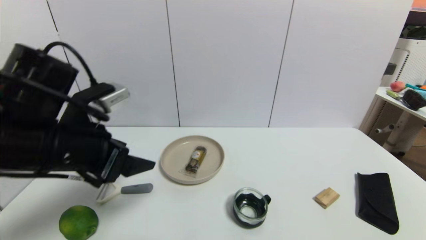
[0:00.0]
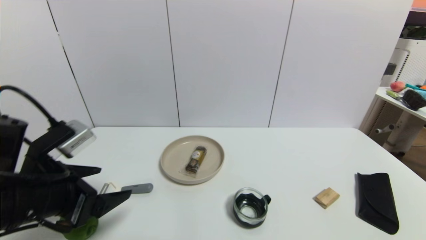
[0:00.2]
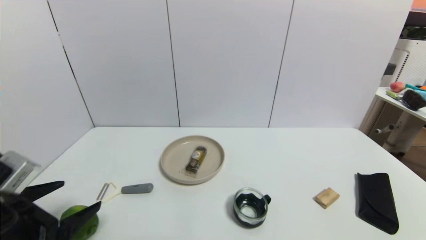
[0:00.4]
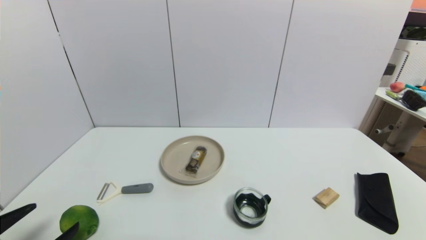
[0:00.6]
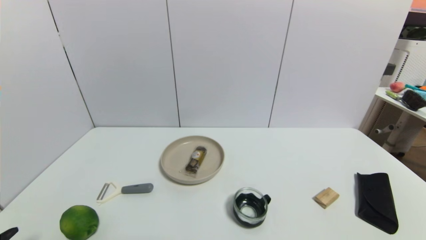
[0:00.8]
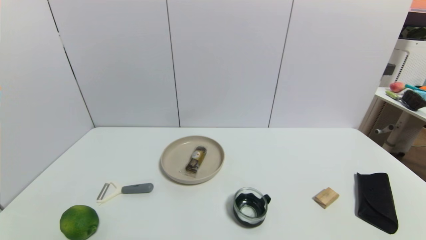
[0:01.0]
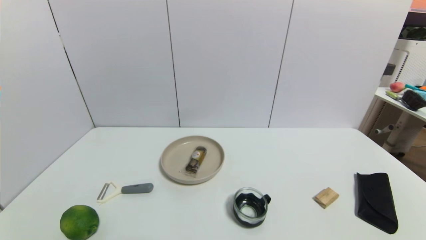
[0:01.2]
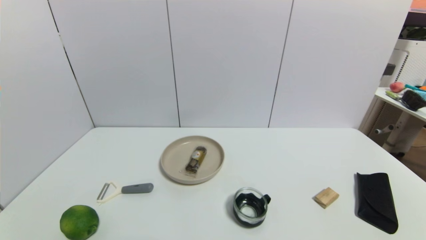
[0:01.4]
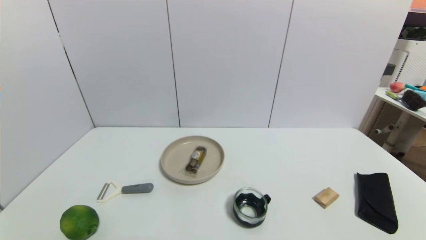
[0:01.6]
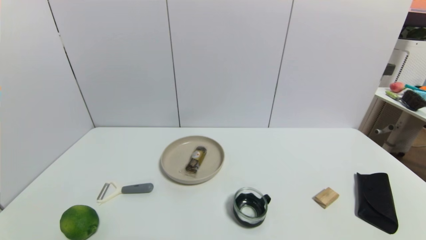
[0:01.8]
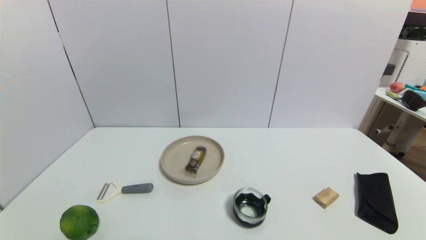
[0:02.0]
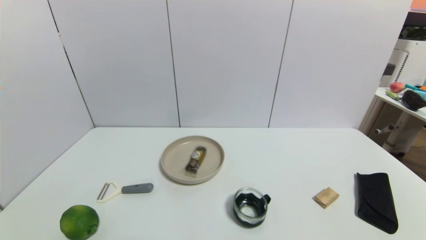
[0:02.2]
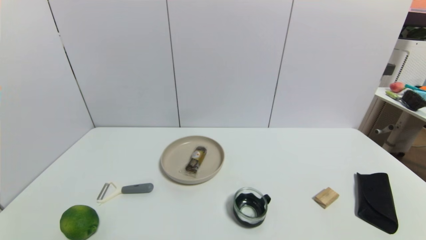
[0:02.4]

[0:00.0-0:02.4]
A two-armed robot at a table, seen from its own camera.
Task of the whole recording: use a gripper to pick the target object and place on the brown plate.
0:00.0 to 0:01.2: The left gripper moves backward, downward and to the left, some 25 cm.
0:01.2 to 0:02.4: Both grippers stay about where they are.

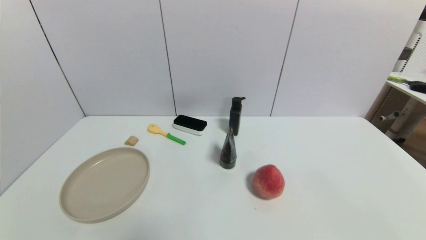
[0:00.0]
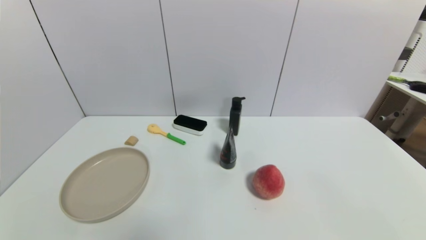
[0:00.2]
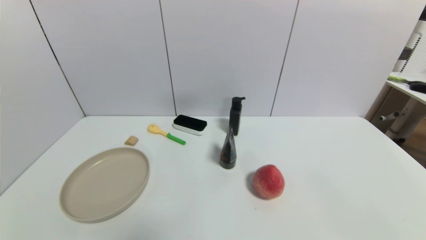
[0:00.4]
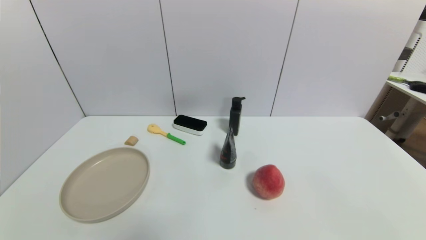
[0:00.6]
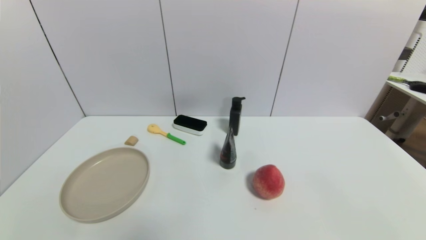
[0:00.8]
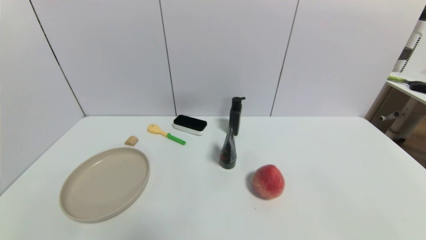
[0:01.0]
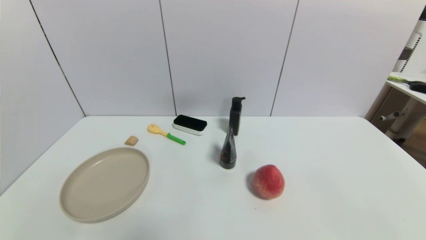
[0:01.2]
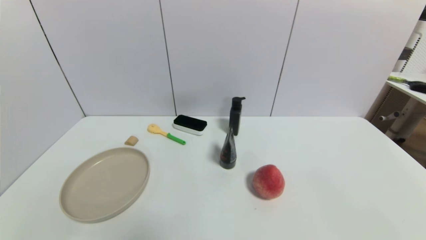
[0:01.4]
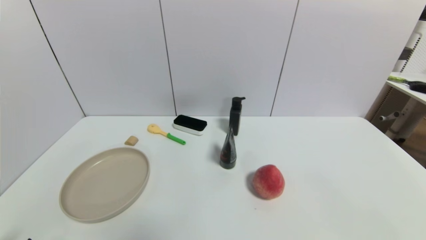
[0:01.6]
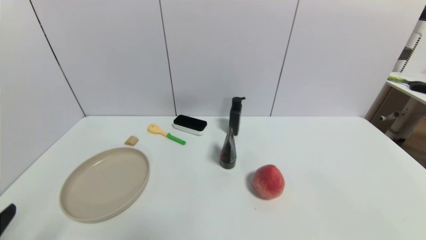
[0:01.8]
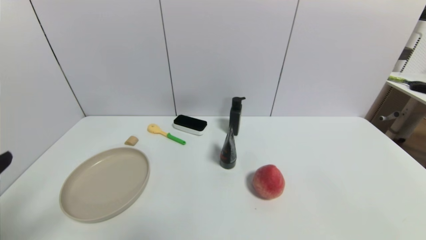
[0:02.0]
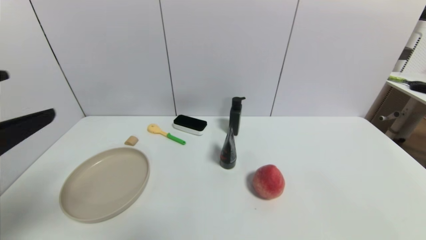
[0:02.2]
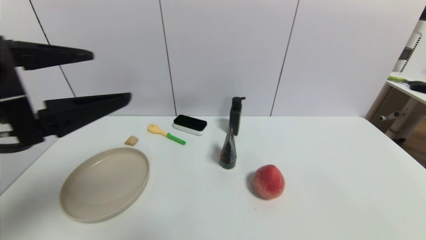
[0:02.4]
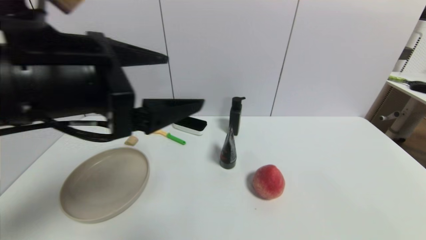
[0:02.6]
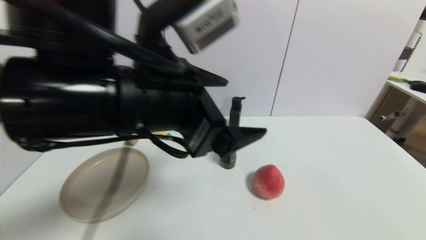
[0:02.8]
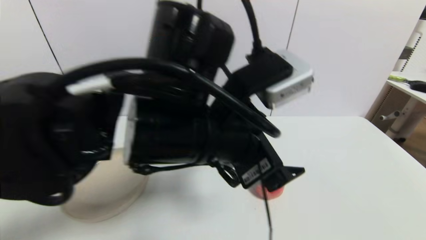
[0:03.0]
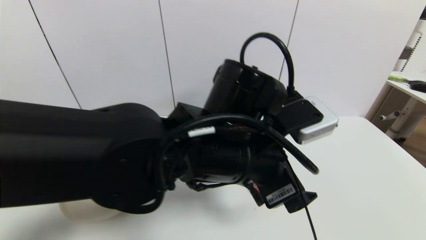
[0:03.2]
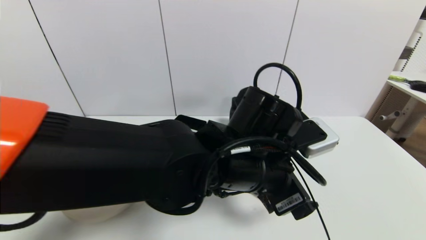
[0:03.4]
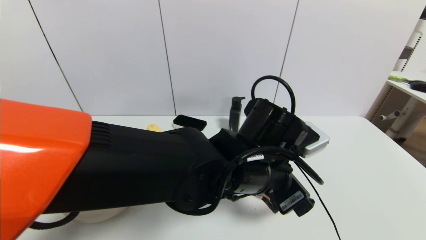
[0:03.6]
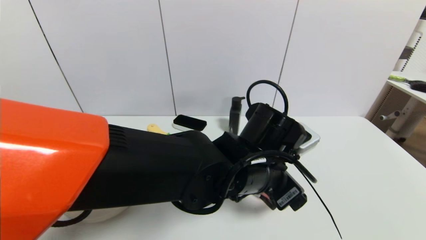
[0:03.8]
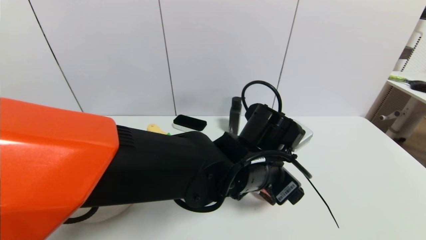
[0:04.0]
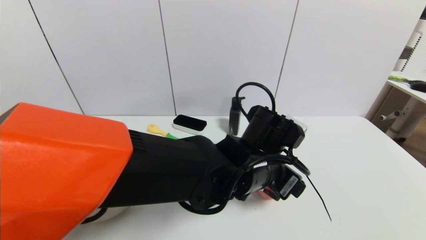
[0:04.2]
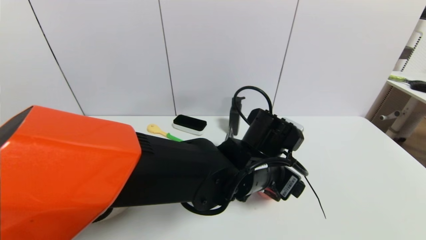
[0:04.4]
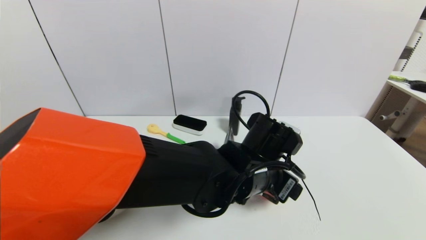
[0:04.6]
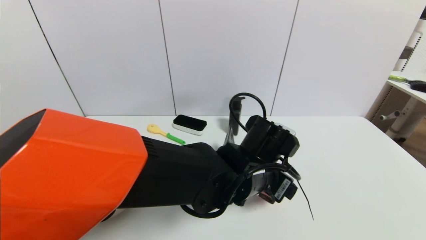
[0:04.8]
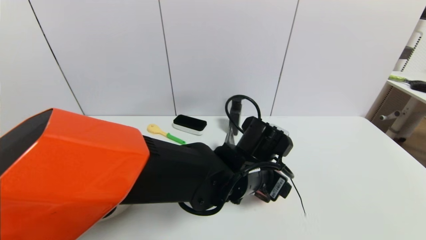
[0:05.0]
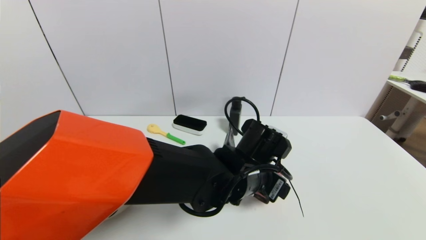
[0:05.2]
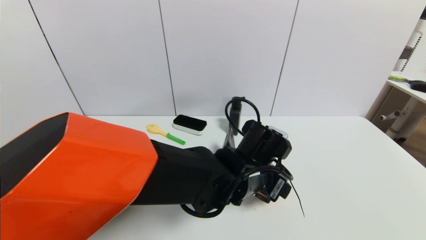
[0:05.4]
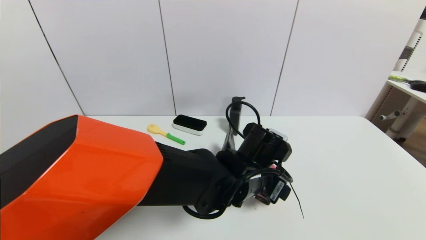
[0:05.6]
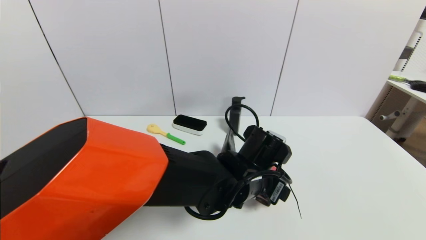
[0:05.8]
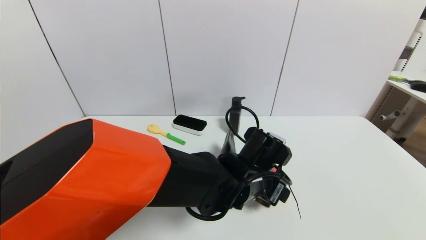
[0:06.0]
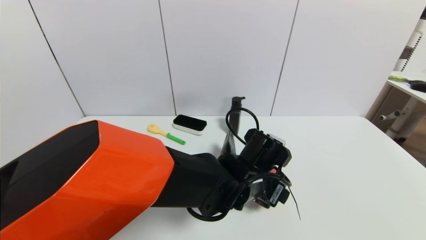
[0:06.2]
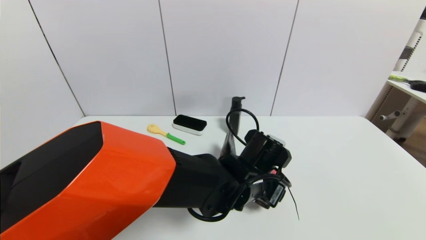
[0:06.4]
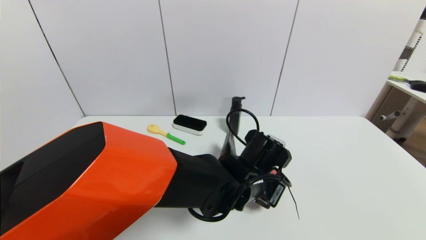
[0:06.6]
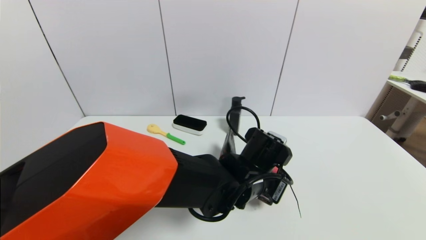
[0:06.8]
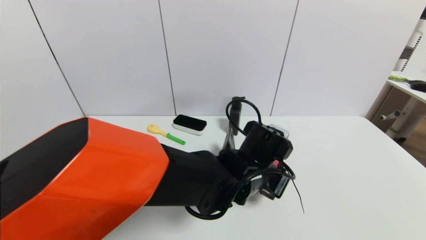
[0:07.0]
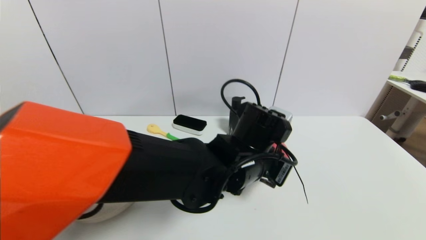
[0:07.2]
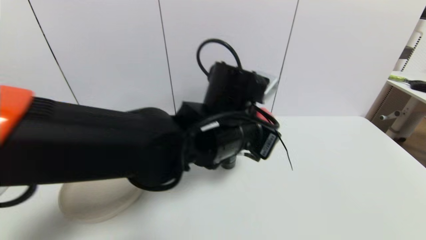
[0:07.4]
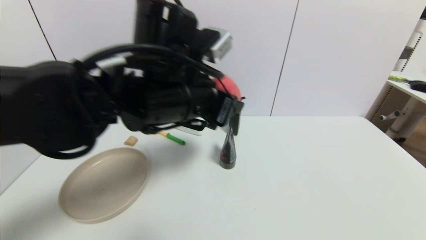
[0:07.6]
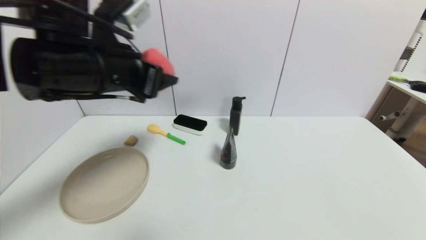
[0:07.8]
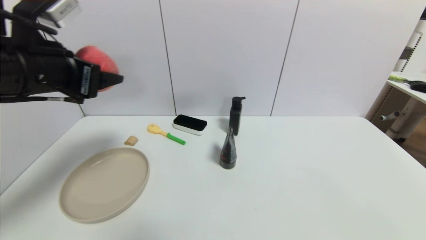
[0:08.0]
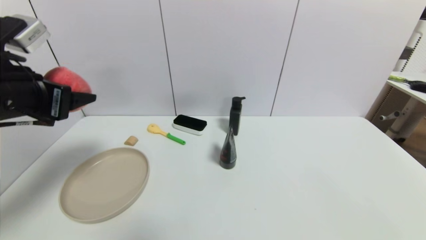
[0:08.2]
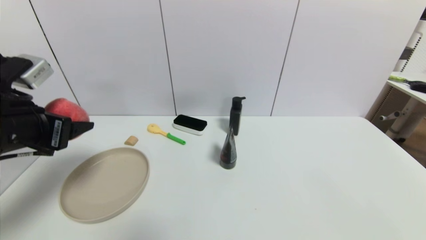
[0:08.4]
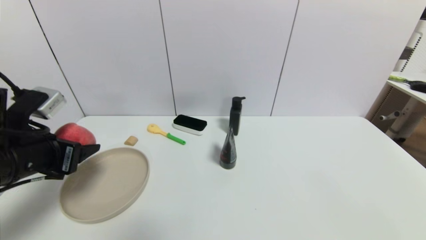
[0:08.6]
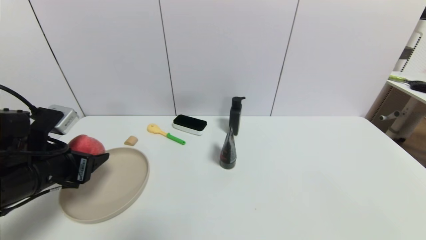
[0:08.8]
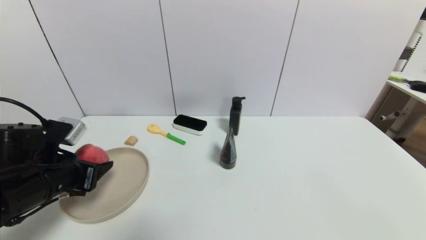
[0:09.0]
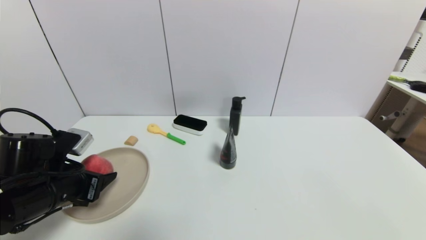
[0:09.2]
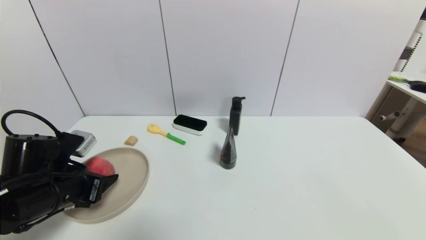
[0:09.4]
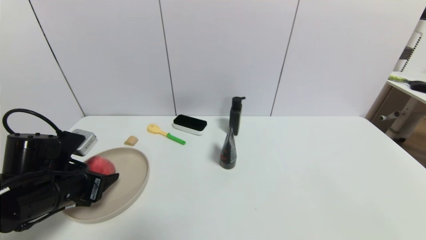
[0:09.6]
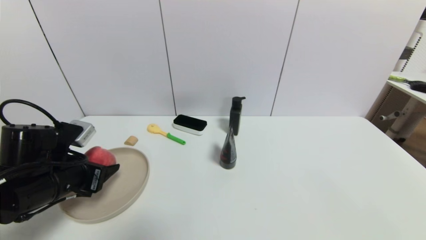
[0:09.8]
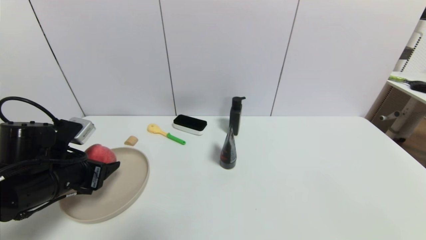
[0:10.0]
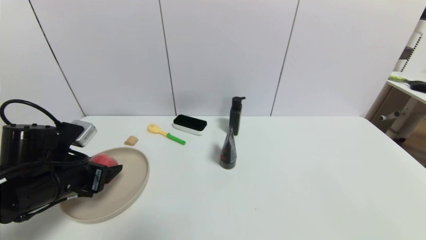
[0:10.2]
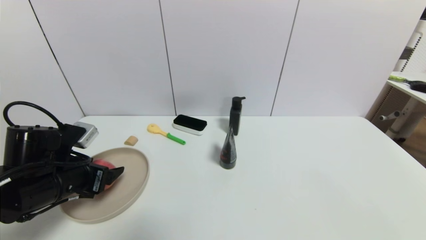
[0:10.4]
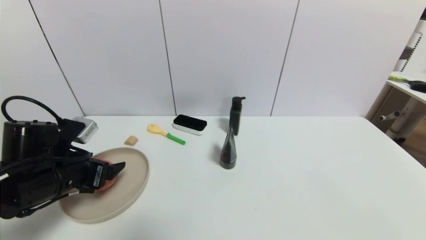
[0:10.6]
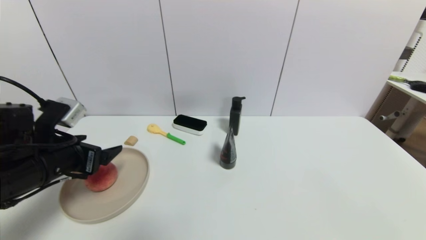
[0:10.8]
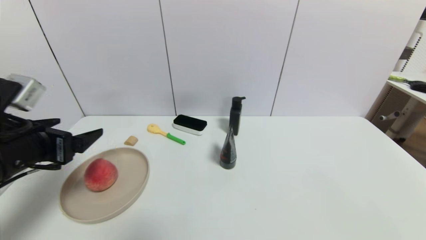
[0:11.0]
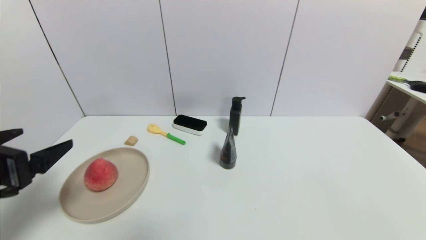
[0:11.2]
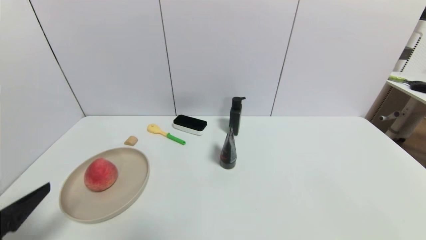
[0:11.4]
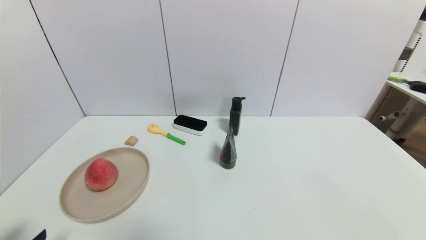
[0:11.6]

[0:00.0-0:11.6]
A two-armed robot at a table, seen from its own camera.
Task of the whole recording: use a gripper to pick the target object and place on the brown plate.
Step, 0:00.0 to 0:06.4: Grasp the peach with the left gripper.
Step, 0:06.6 to 0:10.6: Place the peach on the brown plate with the left gripper.
0:01.4 to 0:02.8: The left gripper travels upward, to the right and forward by roughly 35 cm.
0:02.8 to 0:04.4: The left gripper is displaced downward and to the right by roughly 20 cm.
0:04.4 to 0:05.8: The grippers stay close to where they were, moving slightly.
0:05.8 to 0:07.2: The left gripper travels upward by roughly 5 cm, and closes.
0:07.2 to 0:08.8: The left gripper heads to the left, covering some 30 cm.
0:08.8 to 0:10.2: The left gripper opens its fingers.
0:10.2 to 0:11.6: The left gripper moves backward, approximately 20 cm, and opens.

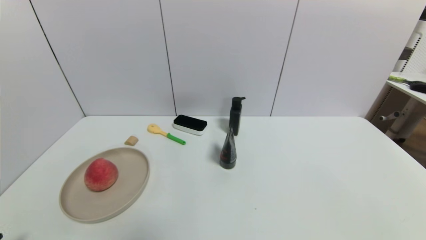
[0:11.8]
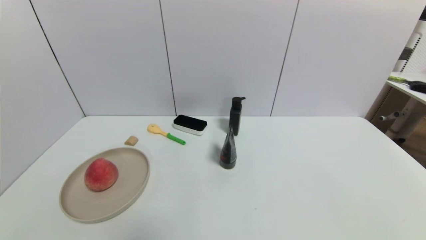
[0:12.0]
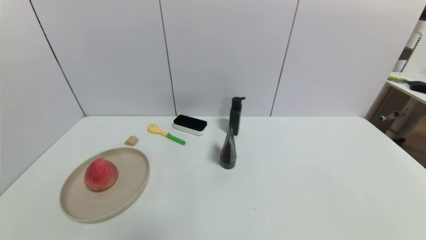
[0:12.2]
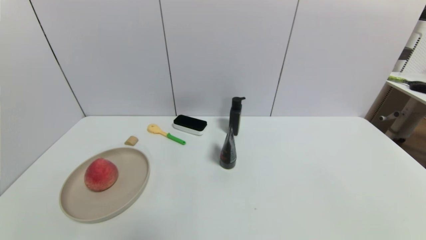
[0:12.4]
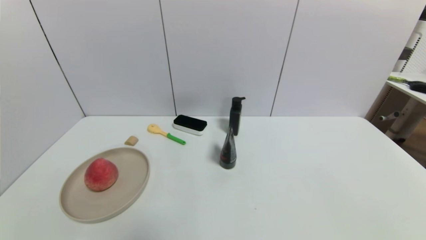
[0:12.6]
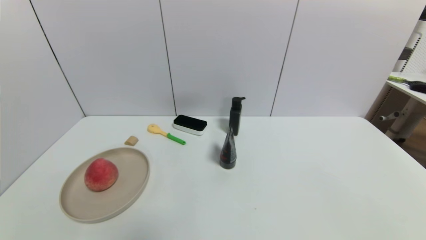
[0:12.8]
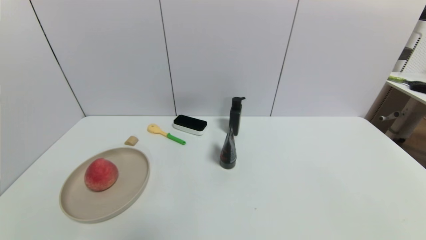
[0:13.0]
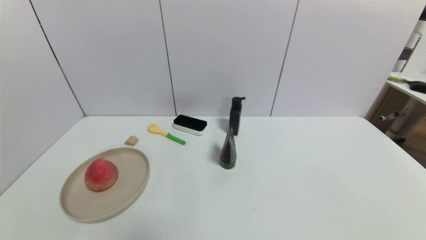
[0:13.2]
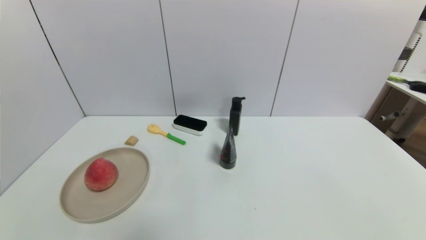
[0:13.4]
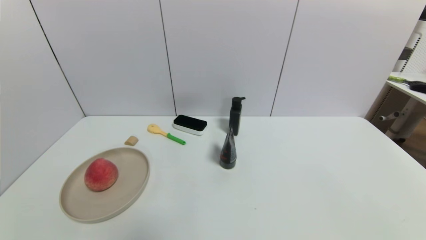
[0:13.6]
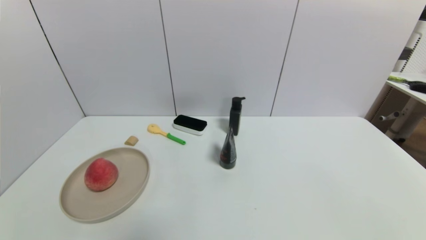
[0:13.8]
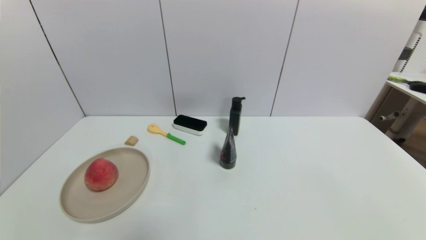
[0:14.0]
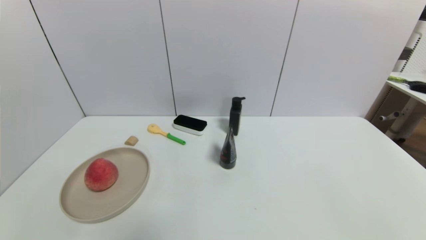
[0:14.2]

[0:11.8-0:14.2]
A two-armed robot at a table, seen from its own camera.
Task of the whole recording: use a gripper to pick the target object and place on the brown plate.
0:13.0 to 0:14.2: Neither gripper changes place.
